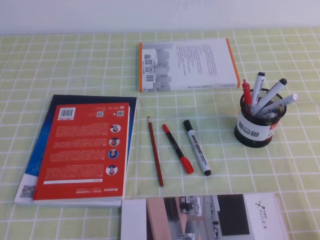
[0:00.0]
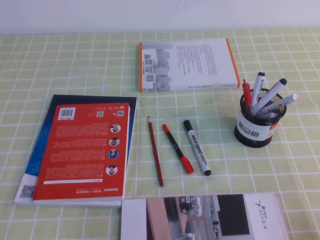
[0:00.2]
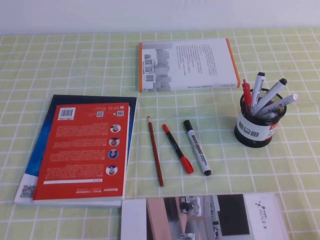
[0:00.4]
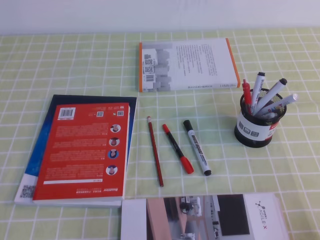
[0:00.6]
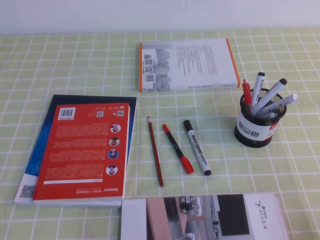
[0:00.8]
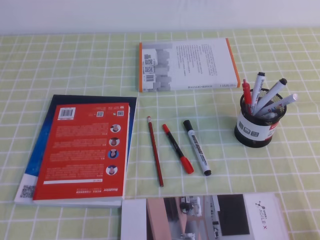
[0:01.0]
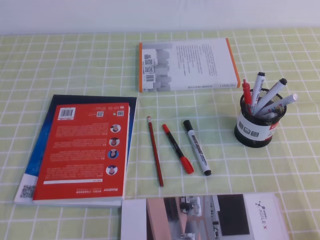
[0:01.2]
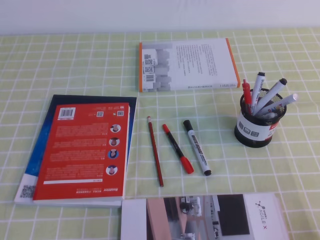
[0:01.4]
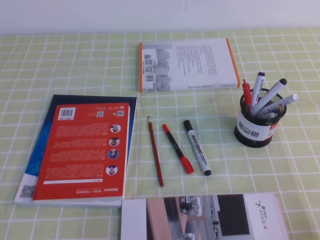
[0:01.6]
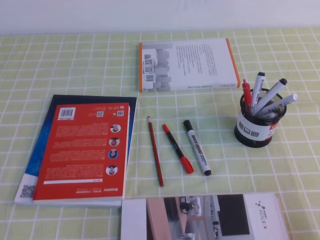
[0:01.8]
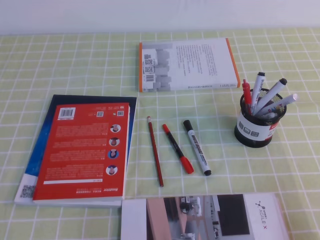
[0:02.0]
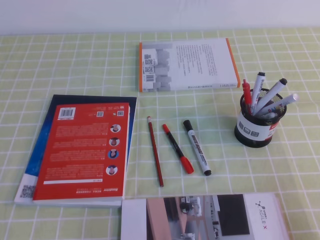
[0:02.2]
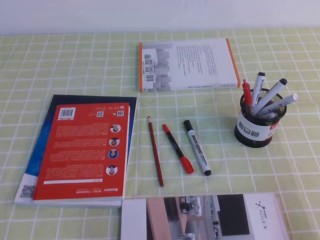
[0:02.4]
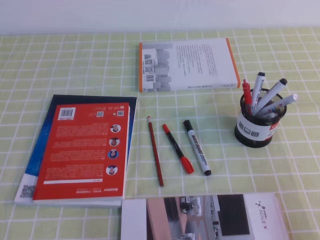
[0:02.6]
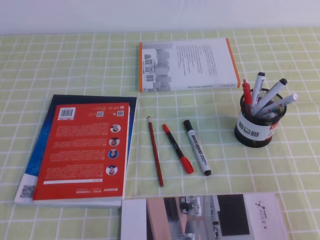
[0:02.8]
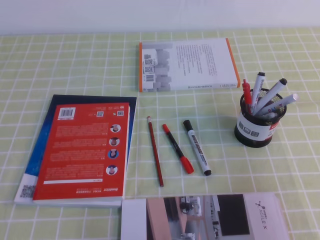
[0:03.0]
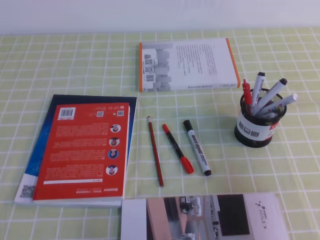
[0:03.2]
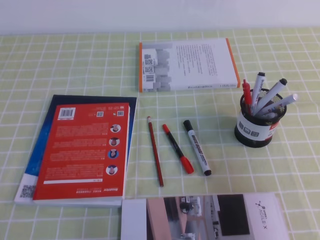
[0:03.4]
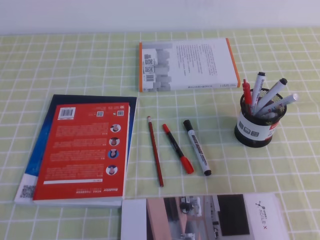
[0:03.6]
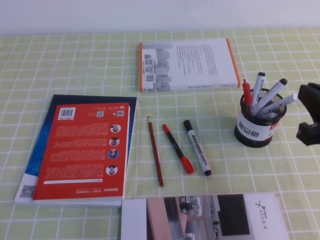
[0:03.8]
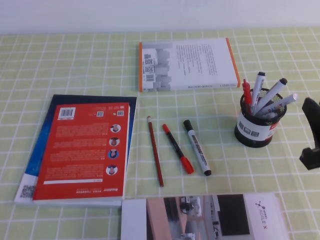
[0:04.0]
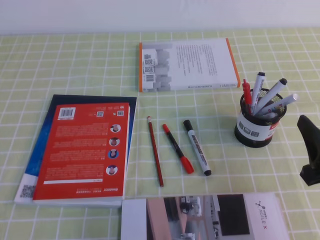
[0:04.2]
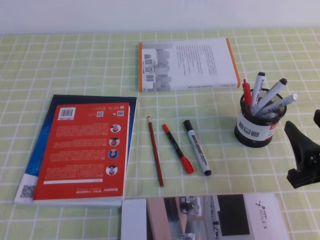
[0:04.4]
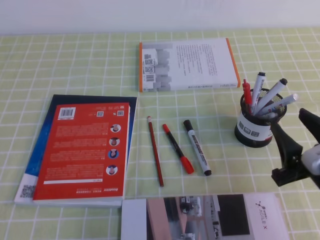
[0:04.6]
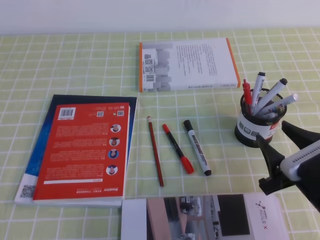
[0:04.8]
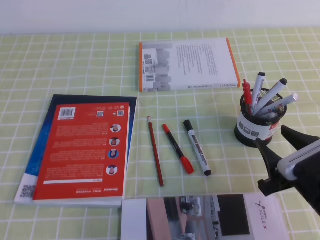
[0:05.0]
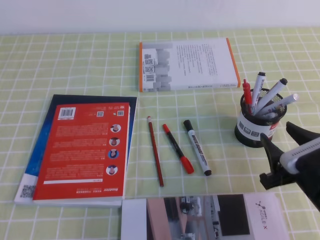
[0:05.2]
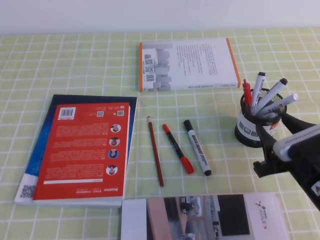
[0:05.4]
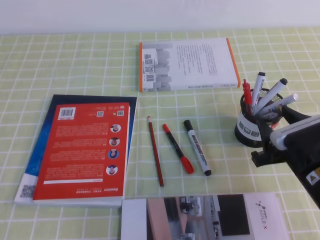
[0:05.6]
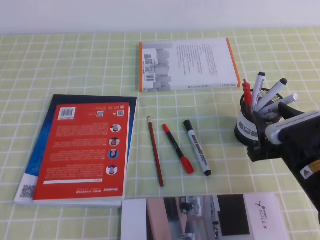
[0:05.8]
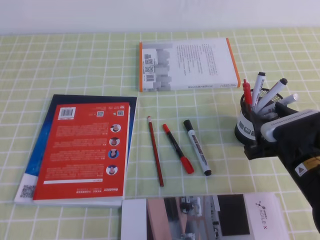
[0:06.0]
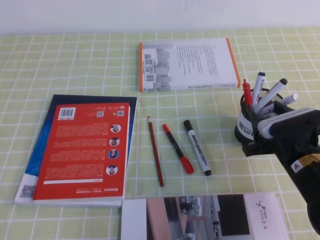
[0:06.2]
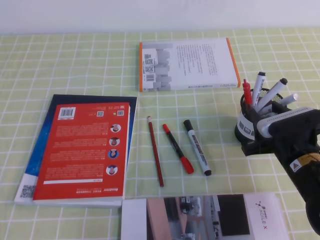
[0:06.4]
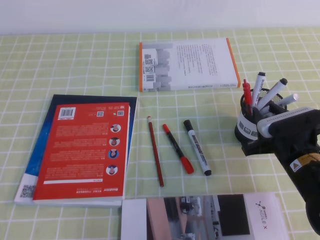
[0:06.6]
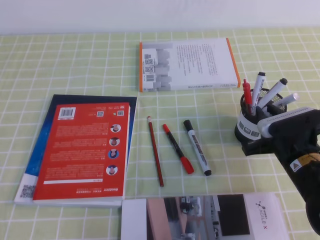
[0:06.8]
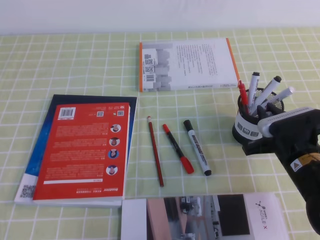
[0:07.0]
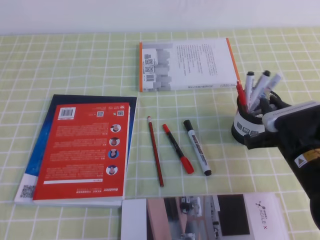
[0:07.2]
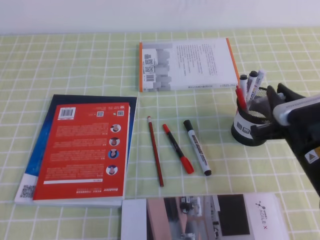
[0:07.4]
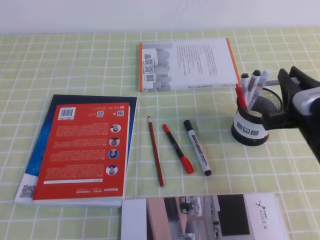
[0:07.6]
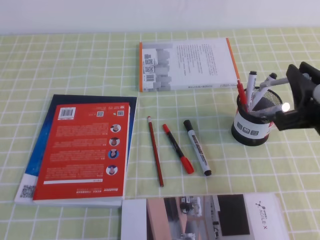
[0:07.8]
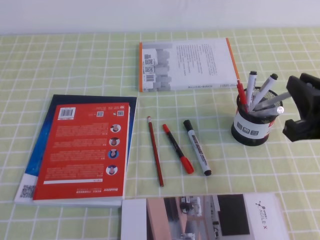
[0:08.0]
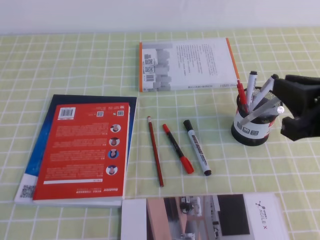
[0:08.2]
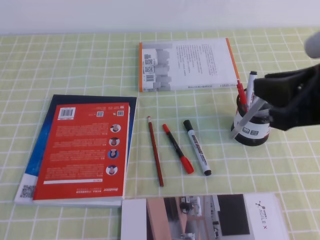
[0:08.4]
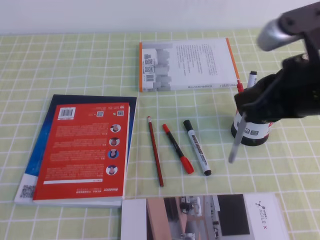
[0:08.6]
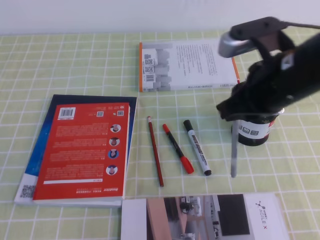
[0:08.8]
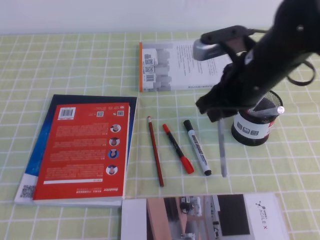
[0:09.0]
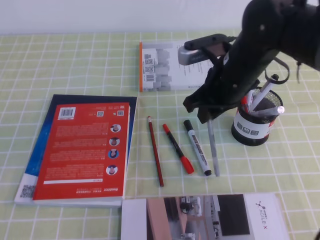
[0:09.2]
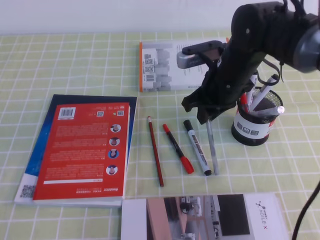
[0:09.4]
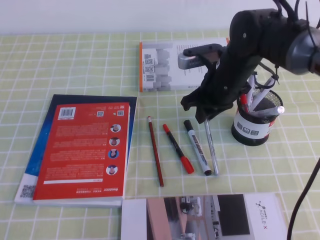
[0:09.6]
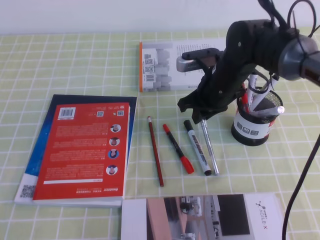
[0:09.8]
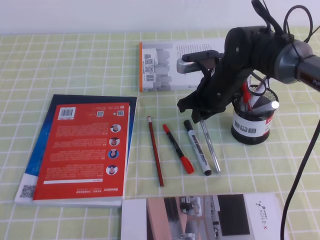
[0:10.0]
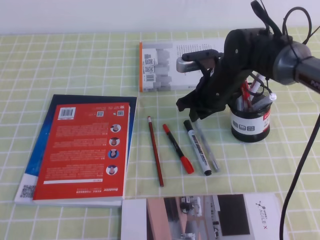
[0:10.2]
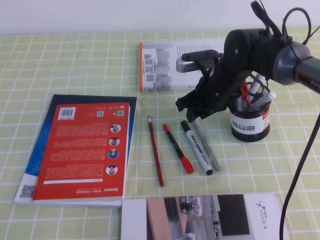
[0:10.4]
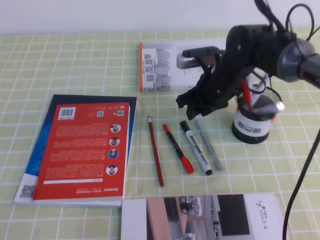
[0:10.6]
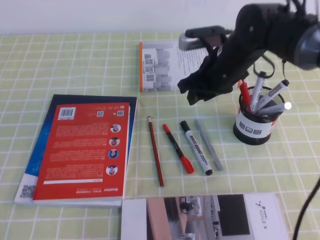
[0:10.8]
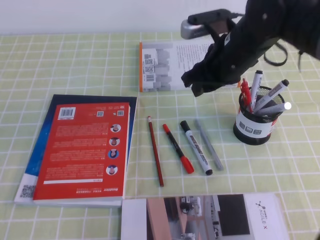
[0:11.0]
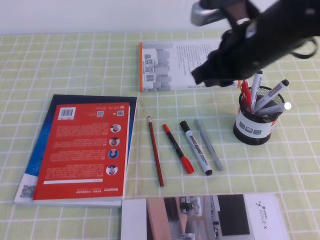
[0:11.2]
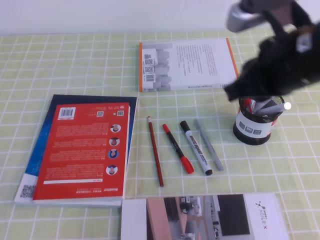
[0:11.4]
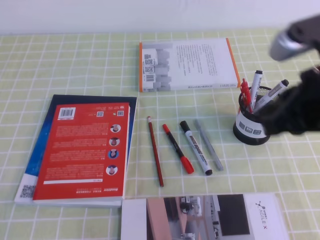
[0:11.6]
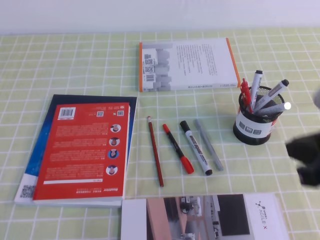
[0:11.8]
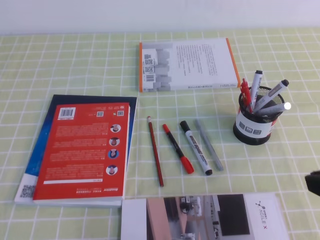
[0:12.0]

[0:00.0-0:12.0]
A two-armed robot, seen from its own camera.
0:00.0 to 0:01.6: Both grippers stay put.
0:01.6 to 0:03.0: The right gripper moves upward, some 10 cm.
0:03.0 to 0:04.4: The right gripper shifts approximately 10 cm forward and to the left, and opens up.
0:04.4 to 0:06.0: The right gripper is displaced forward and downward by roughly 10 cm.
0:06.0 to 0:07.6: The right gripper shifts roughly 5 cm upward, and closes its fingers.
0:07.6 to 0:09.0: The right gripper heads upward, to the left and forward, covering roughly 15 cm.
0:09.0 to 0:10.4: The right gripper goes about 15 cm forward and downward, and opens its fingers.
0:10.4 to 0:12.0: The right gripper goes some 30 cm backward and to the right, and closes up.

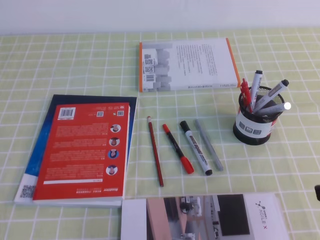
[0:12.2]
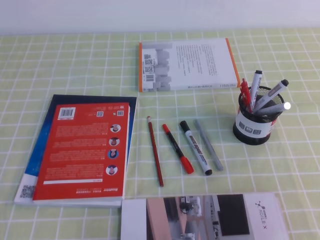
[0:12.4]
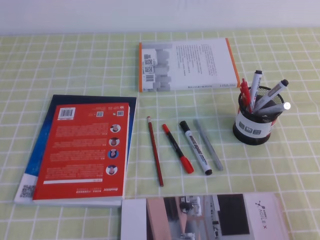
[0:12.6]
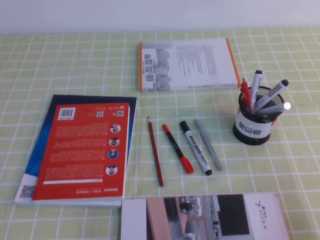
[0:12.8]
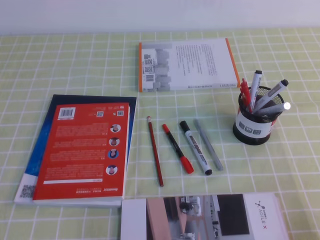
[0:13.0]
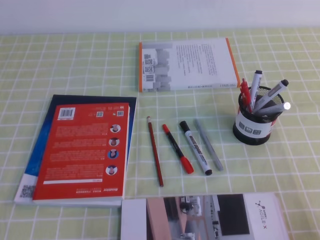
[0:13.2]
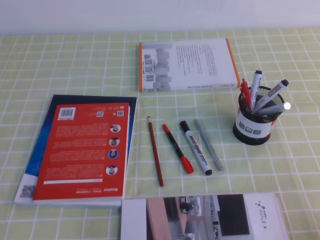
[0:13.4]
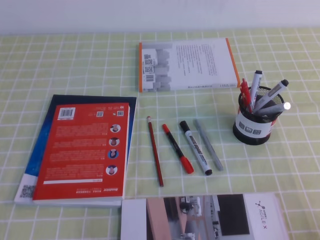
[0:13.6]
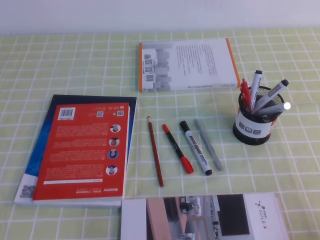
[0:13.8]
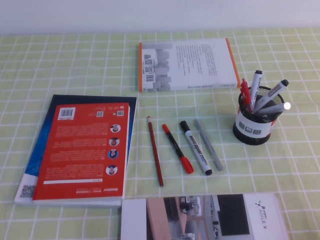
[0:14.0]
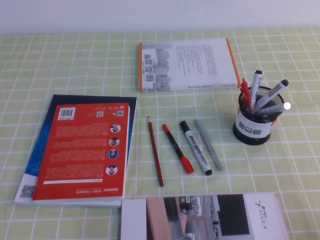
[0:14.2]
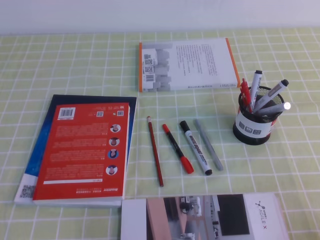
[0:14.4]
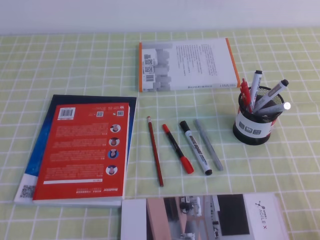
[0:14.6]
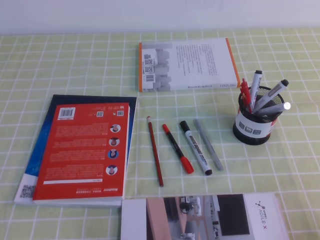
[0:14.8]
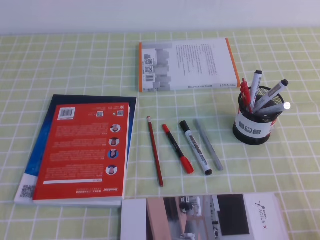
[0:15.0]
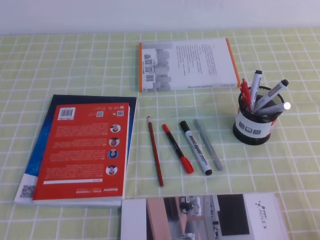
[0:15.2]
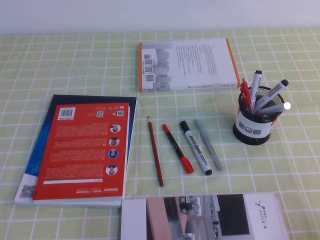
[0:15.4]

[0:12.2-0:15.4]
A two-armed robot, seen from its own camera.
0:12.2 to 0:13.8: The right gripper is displaced downward, to the right and backward by about 15 cm.
0:13.8 to 0:15.4: Both grippers stay about where they are.
